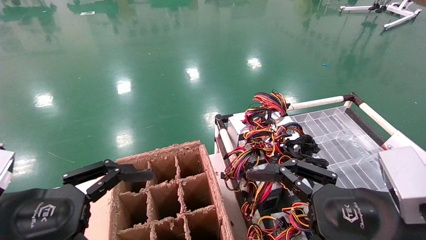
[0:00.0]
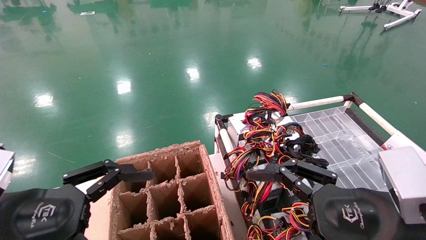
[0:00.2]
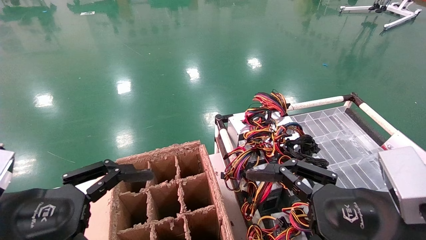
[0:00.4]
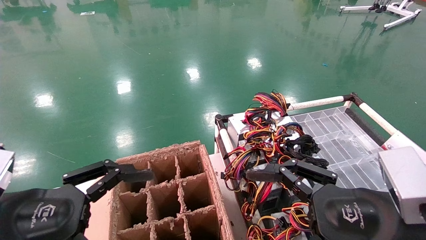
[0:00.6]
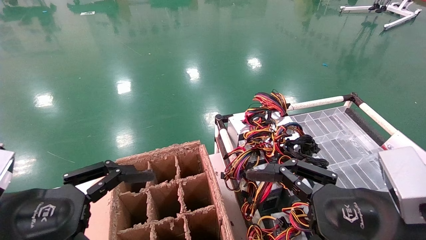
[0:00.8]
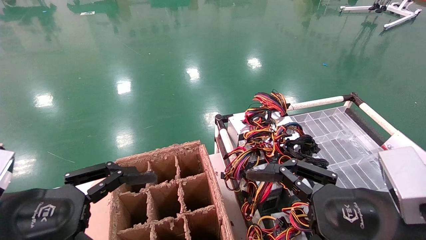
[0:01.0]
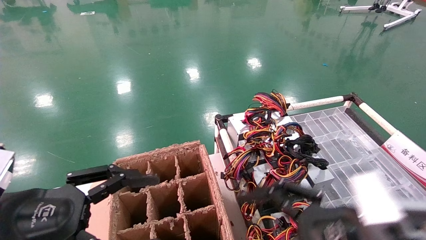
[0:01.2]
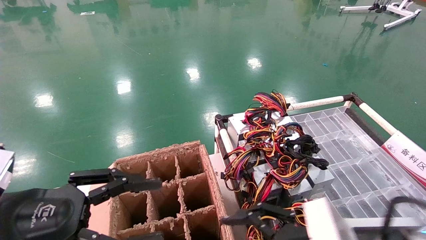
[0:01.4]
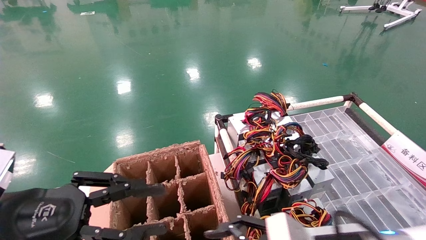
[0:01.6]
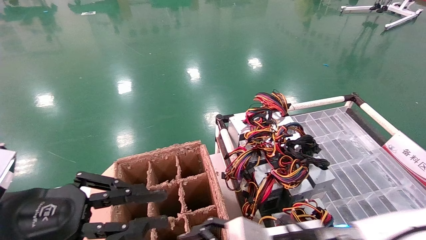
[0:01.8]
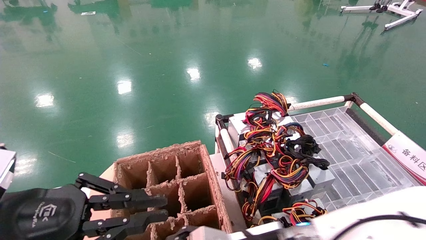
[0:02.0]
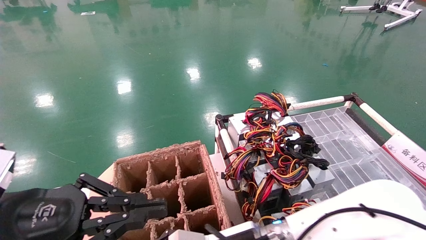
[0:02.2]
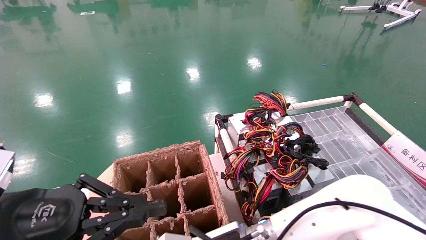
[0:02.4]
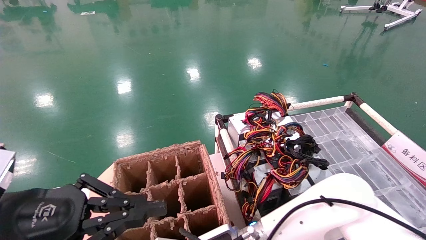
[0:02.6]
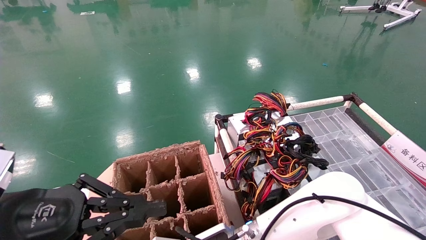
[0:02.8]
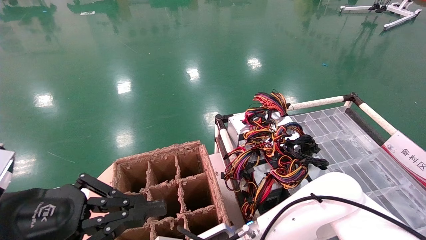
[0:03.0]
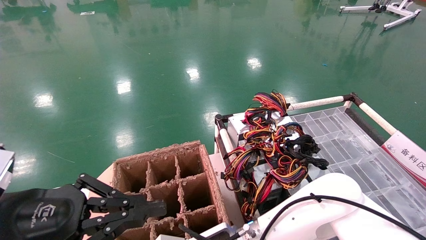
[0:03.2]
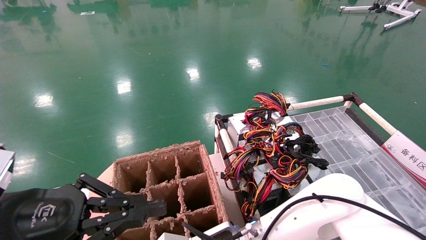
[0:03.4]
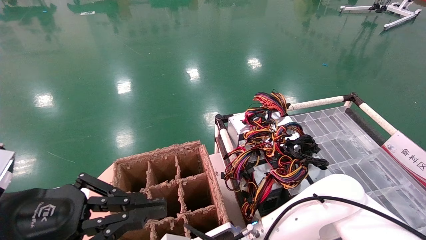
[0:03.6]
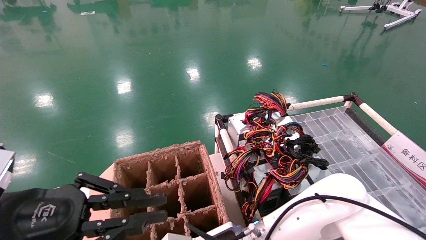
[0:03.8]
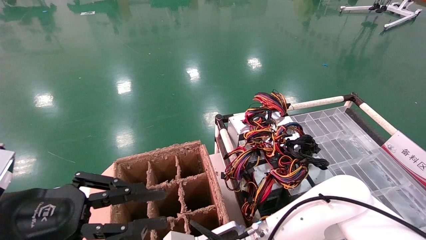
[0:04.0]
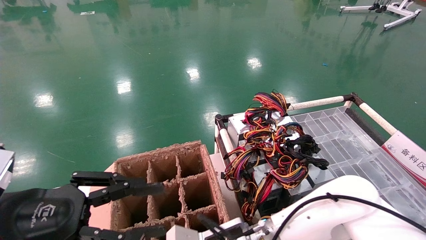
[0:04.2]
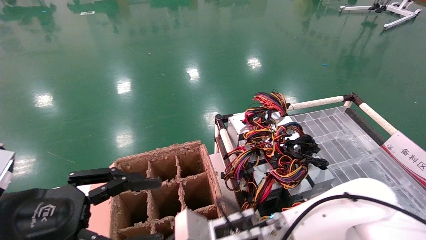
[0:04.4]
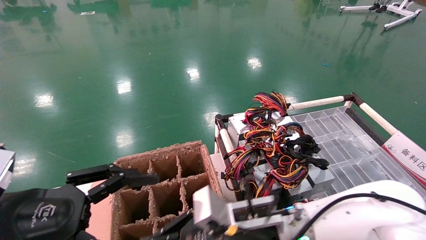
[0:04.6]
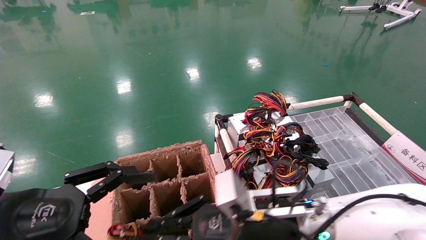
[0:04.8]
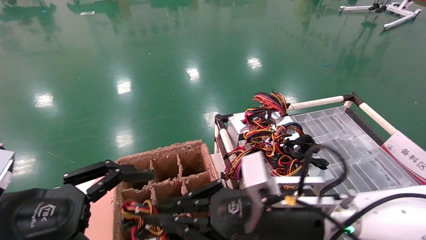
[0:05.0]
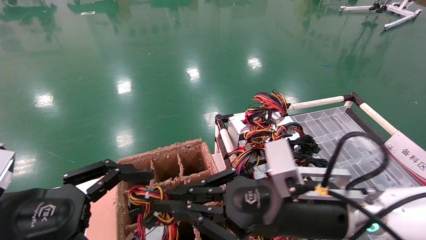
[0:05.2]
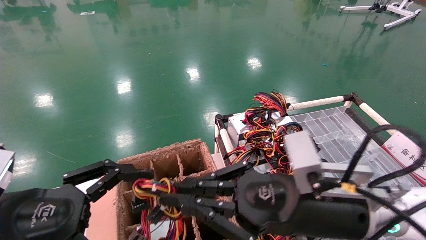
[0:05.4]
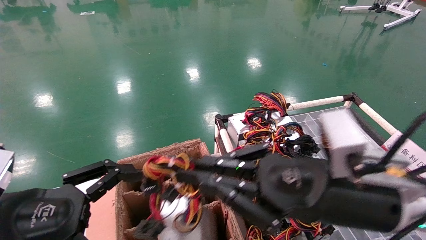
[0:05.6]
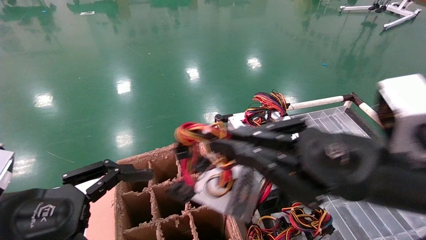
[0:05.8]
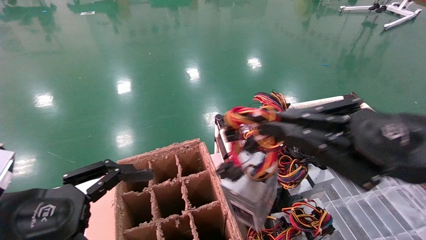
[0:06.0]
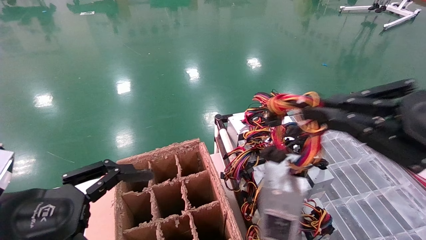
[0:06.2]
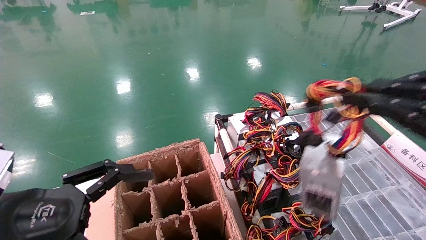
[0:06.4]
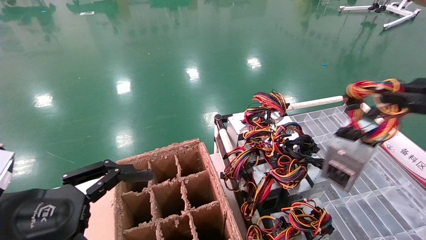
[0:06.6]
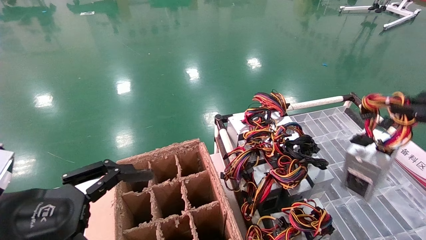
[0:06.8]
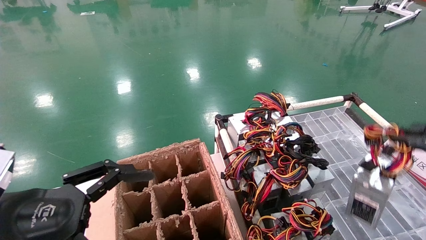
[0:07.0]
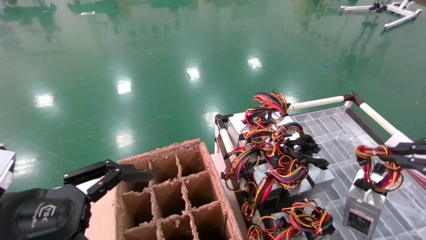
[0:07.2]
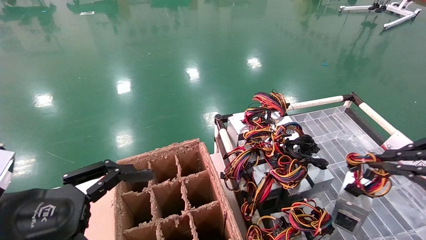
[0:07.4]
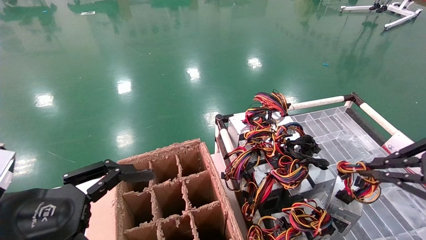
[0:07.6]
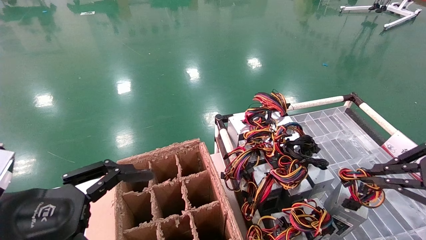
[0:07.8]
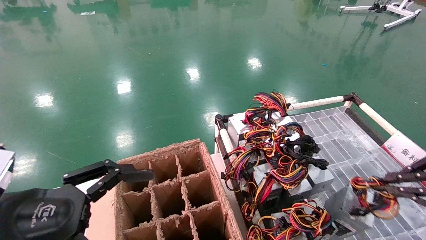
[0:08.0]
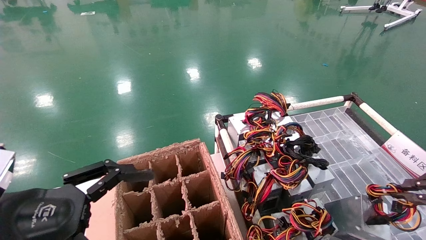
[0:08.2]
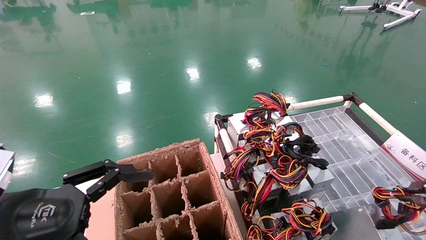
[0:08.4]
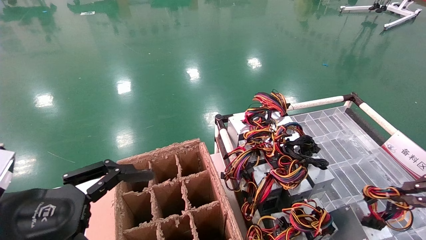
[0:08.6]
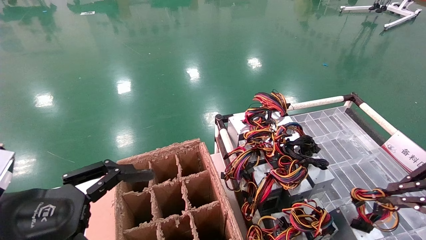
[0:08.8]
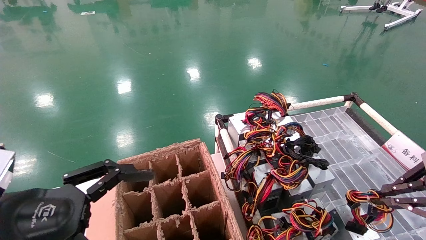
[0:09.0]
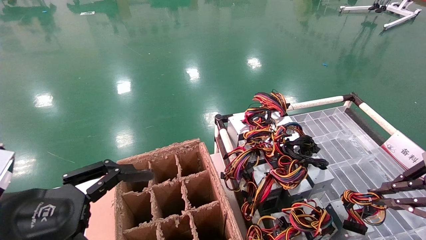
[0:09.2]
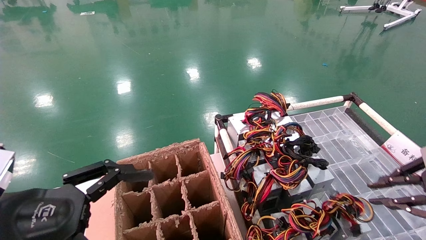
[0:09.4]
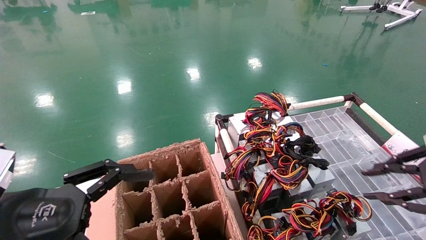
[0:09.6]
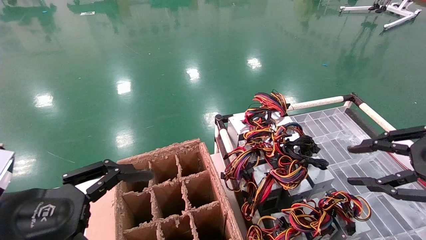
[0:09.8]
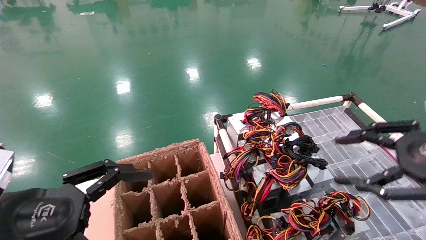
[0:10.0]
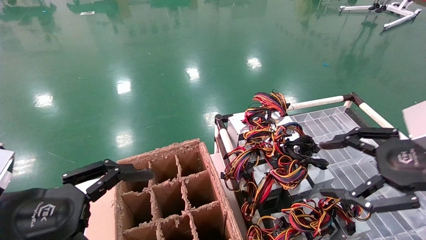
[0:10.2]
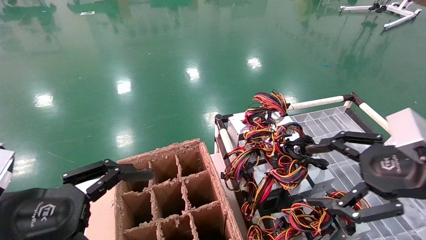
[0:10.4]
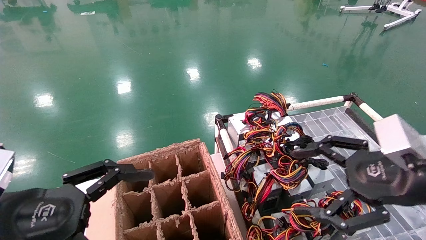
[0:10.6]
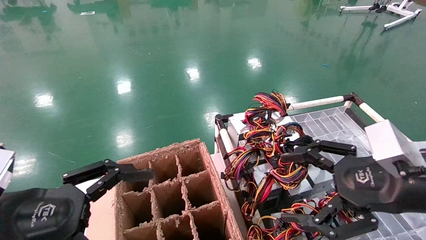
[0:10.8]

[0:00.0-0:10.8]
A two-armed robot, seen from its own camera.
Step, 0:01.2 to 0:03.8: Grab and lift the power supply from the large box.
Step, 0:04.0 to 0:09.4: Place the power supply on the operating table.
0:00.0 to 0:01.6: The left gripper closes, while the right gripper shifts roughly 10 cm downward and to the left.
0:01.6 to 0:03.0: The right gripper travels to the left, forward and downward by approximately 15 cm; the left gripper closes its fingers.
0:03.0 to 0:04.6: The left gripper opens. The right gripper moves to the right and upward, about 5 cm, and closes up.
0:04.6 to 0:06.2: The left gripper opens up; the right gripper travels to the right, upward and backward by about 35 cm.
0:06.2 to 0:07.8: The right gripper heads to the right, covering approximately 10 cm.
0:07.8 to 0:09.2: The grippers stay close to where they were, moving slightly.
0:09.2 to 0:10.8: The right gripper shifts about 15 cm to the left, and opens its fingers.
